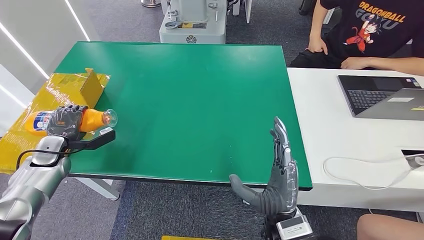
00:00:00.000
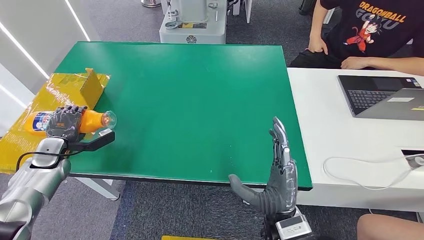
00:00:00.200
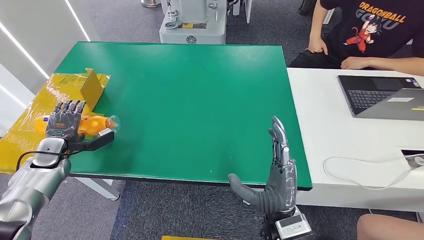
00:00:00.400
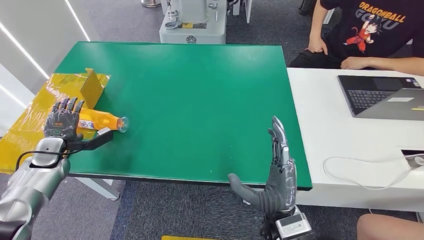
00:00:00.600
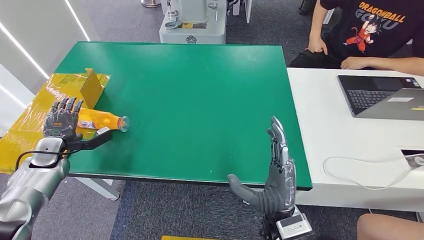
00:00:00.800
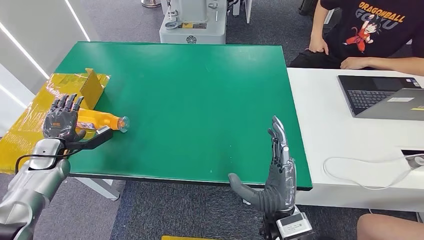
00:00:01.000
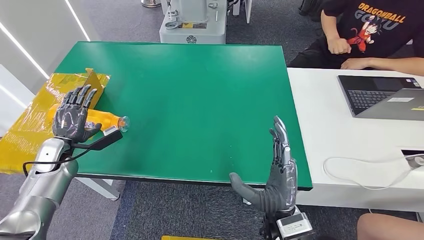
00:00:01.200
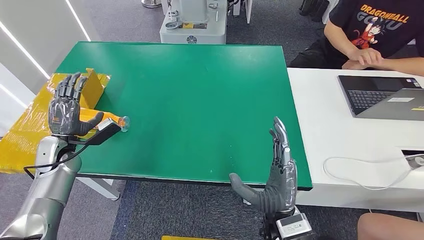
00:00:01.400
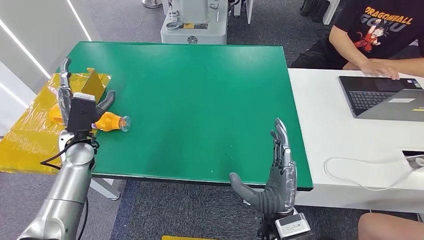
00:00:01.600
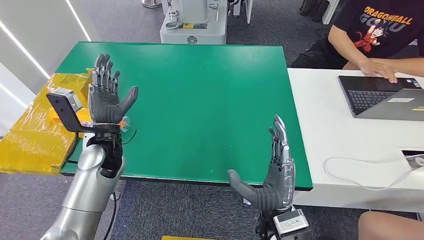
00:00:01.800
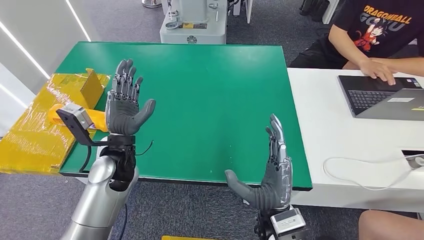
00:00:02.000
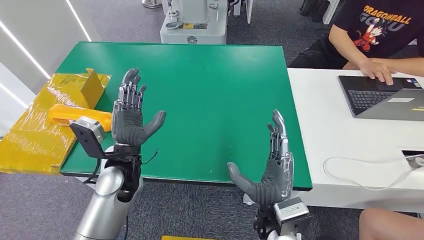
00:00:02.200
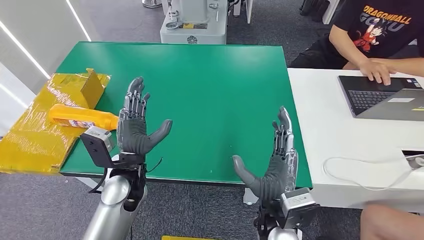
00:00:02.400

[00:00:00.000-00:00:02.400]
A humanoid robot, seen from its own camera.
Step, 00:00:00.000 to 00:00:02.200: Turn the bottle to the front side.
00:00:01.200 to 00:00:02.400: The left hand heads to the right, covering about 30 cm.

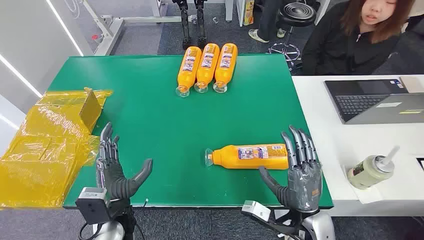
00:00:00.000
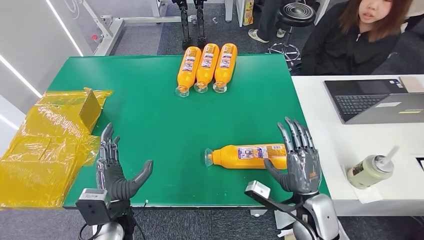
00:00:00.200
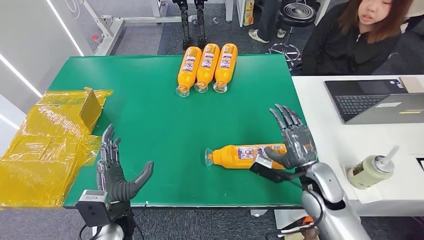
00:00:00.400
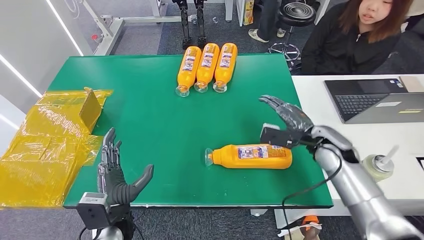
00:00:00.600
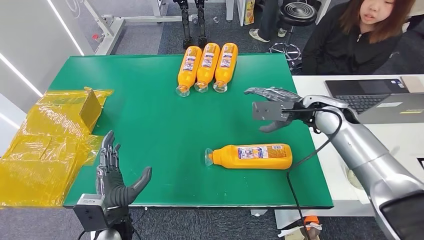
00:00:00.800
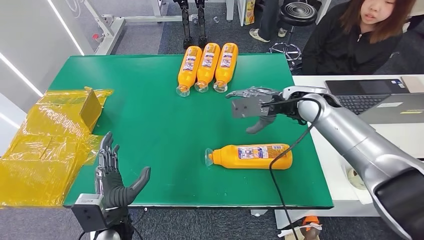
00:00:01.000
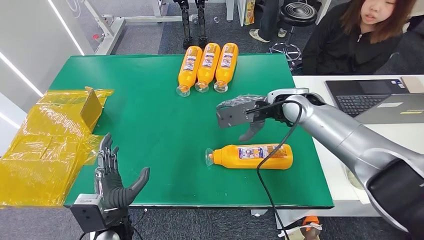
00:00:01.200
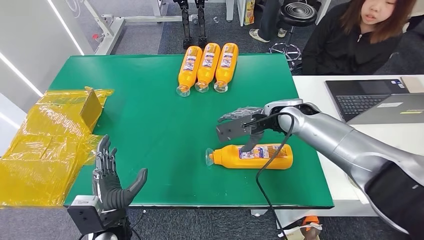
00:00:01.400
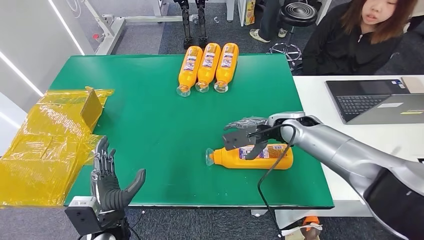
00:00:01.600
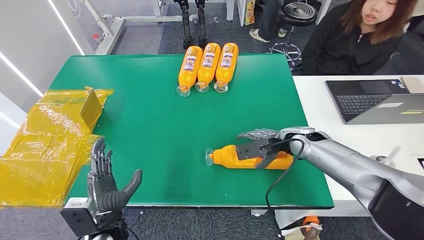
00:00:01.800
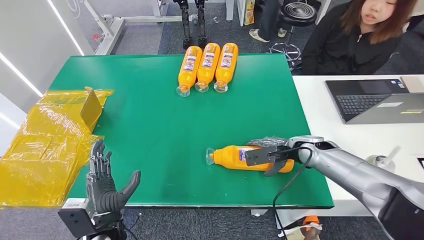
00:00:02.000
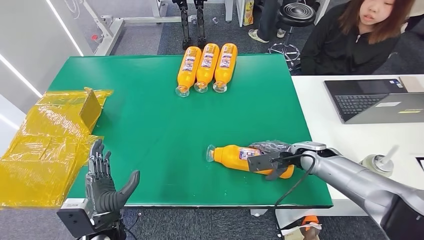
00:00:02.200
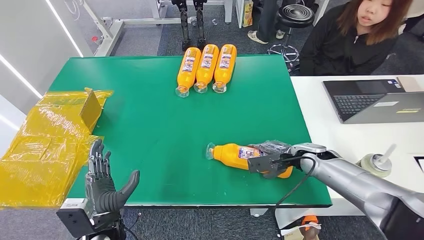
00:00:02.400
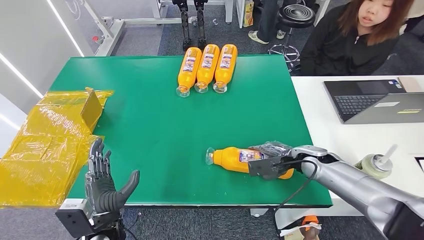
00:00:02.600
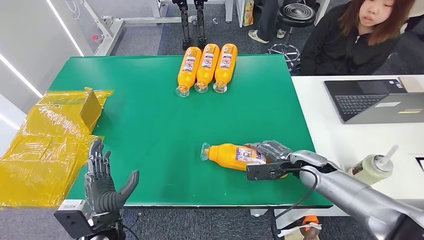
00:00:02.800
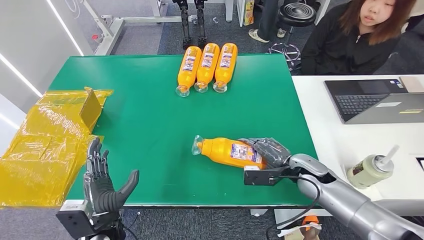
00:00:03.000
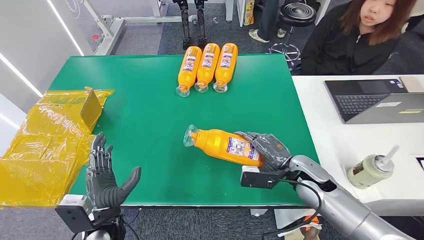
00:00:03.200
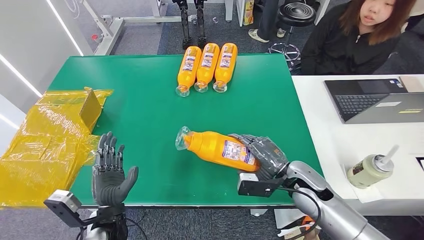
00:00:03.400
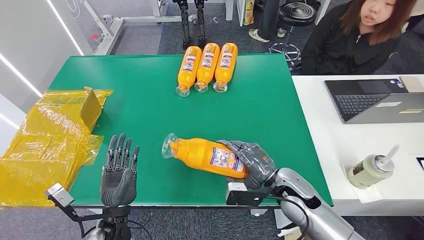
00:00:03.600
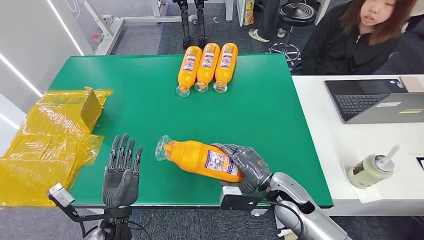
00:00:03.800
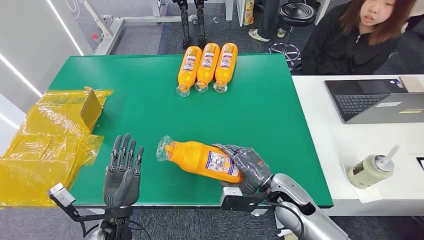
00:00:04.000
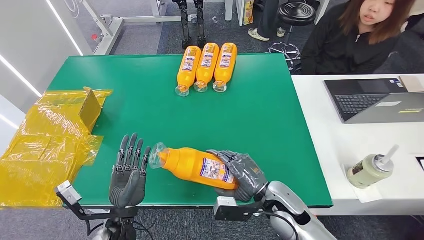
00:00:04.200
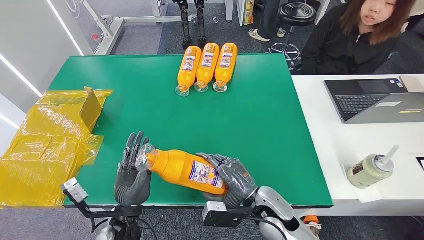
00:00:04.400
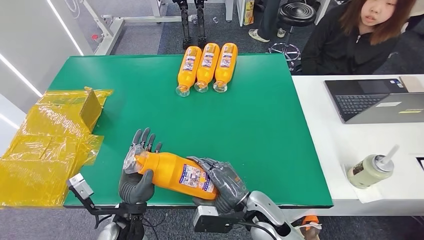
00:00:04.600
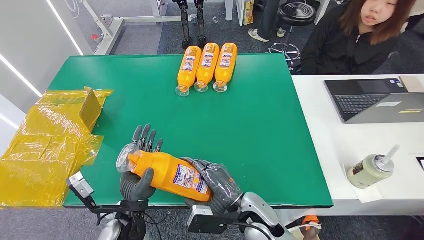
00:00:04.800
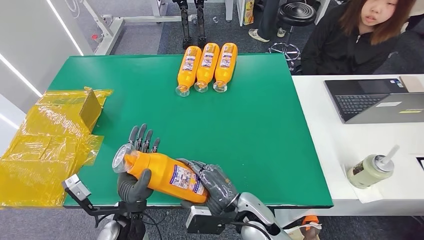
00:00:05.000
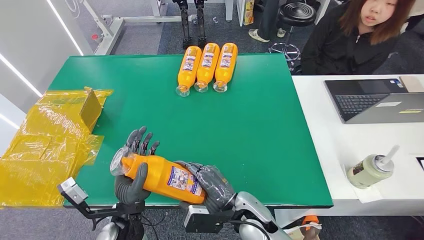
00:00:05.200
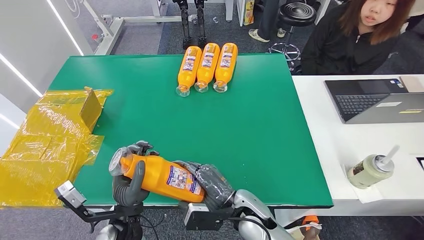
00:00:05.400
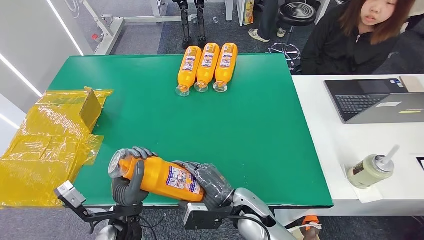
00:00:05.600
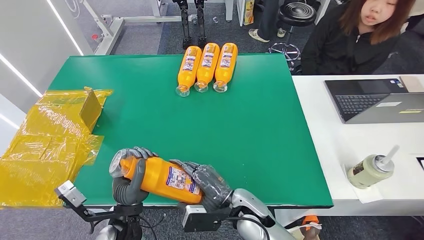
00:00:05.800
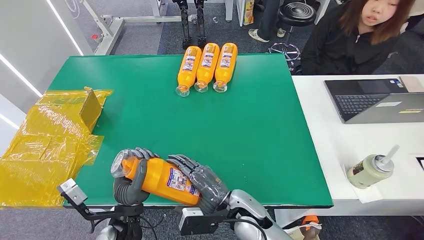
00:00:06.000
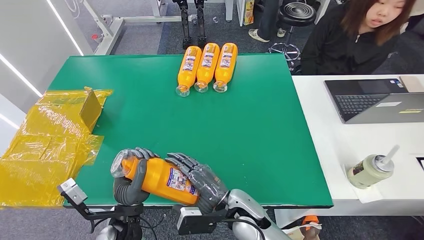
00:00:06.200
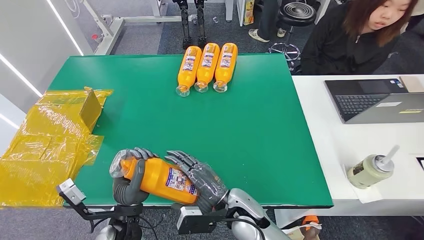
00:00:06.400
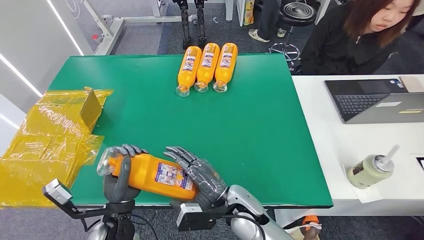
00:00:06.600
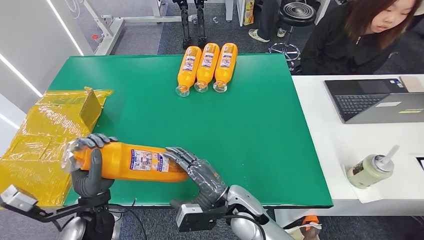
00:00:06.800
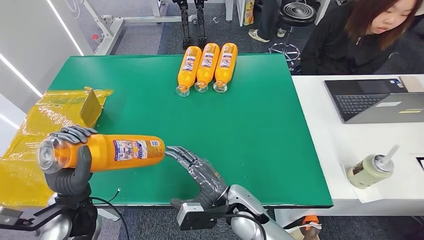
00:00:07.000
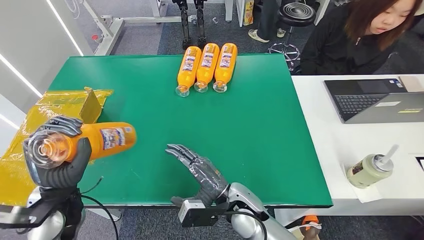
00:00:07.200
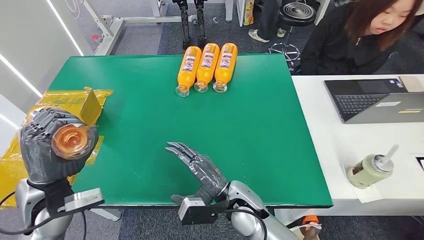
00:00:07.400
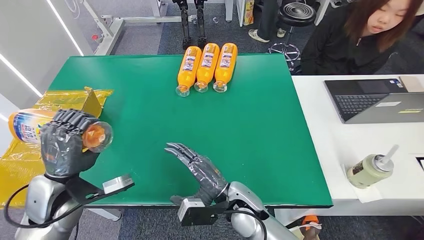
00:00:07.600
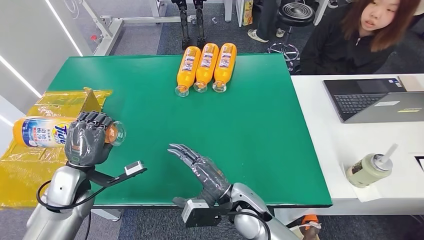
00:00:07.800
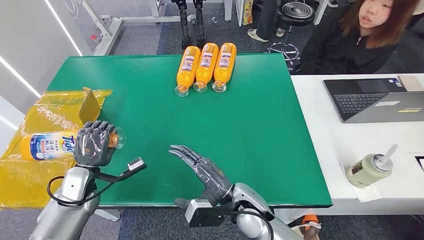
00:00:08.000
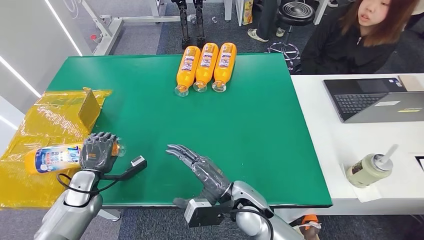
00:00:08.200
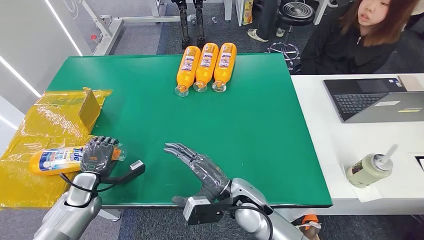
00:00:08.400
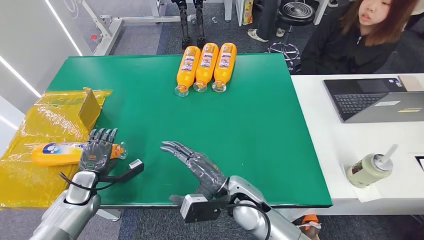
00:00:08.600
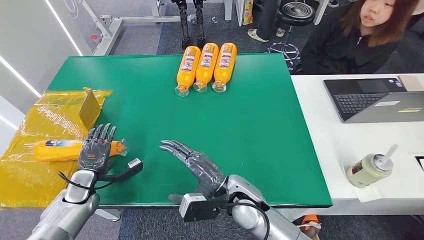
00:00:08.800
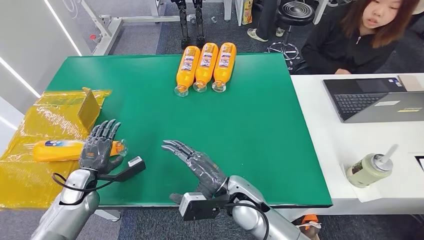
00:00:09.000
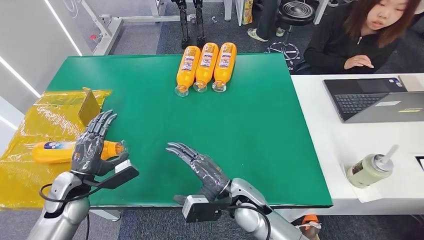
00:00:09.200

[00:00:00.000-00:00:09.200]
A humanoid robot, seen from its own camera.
Step, 00:00:00.000 to 00:00:04.200: Pick up the bottle from the table.
Step, 00:00:04.400 to 00:00:09.200: Turn the bottle to the front side.
00:00:01.600 to 00:00:03.000: The right hand travels downward and backward by some 15 cm.
00:00:03.000 to 00:00:04.600: The left hand ends up about 5 cm from where it was. Meanwhile the right hand travels to the left and backward by about 20 cm.
00:00:04.600 to 00:00:06.200: The hands move only a little.
00:00:06.200 to 00:00:07.600: The left hand goes approximately 20 cm to the left, forward and upward.
00:00:07.600 to 00:00:09.200: The left hand goes about 10 cm downward.
